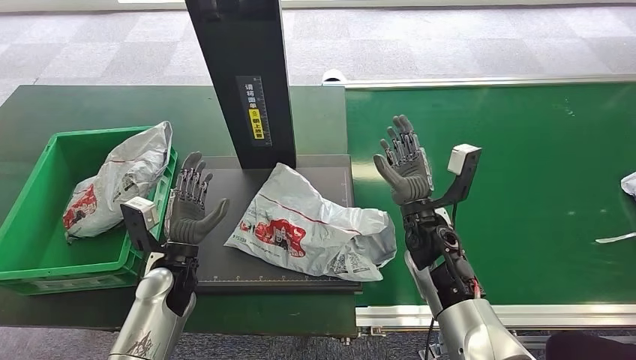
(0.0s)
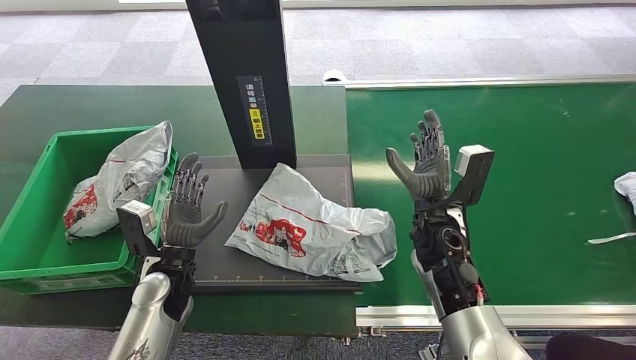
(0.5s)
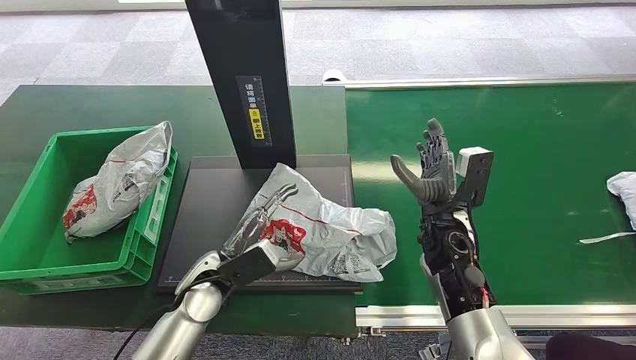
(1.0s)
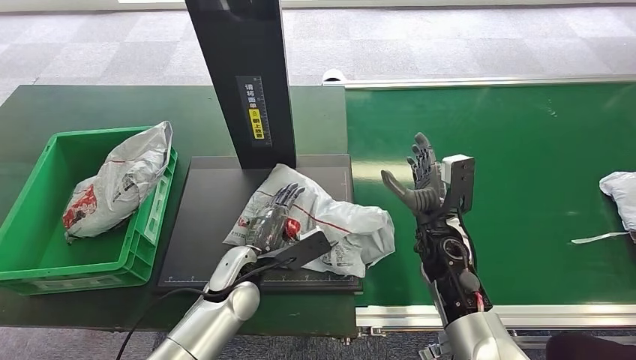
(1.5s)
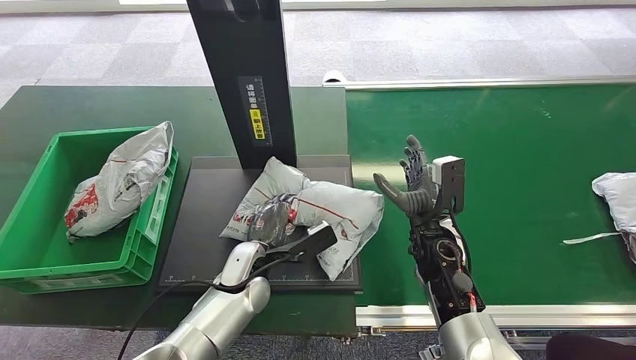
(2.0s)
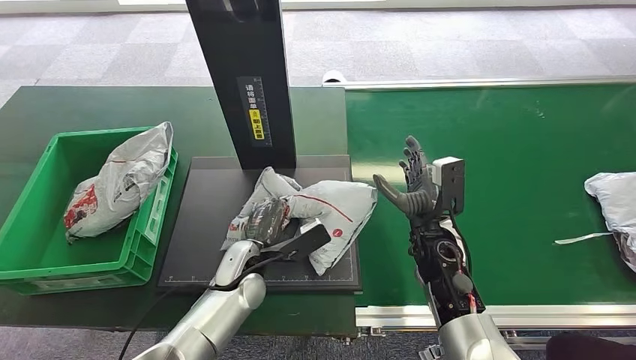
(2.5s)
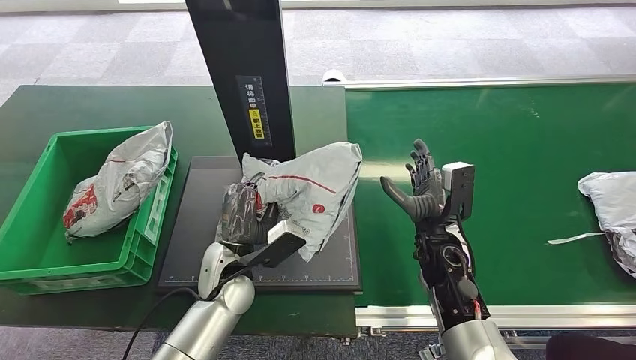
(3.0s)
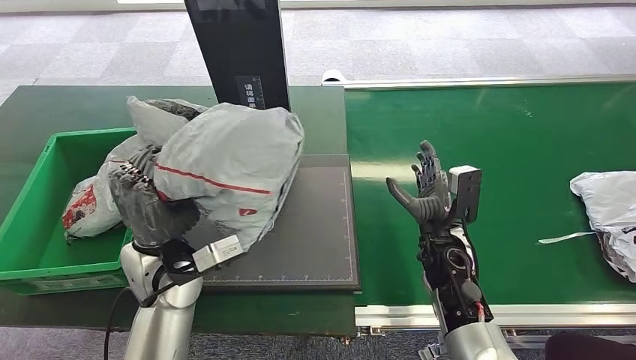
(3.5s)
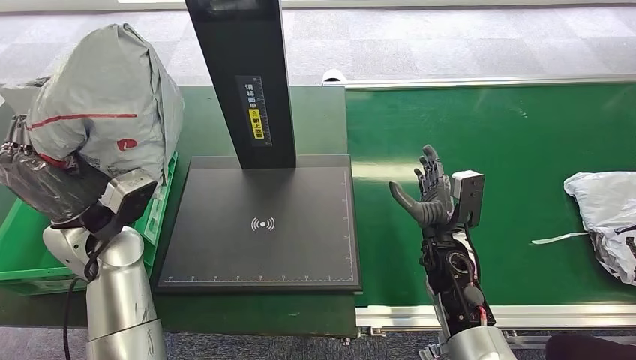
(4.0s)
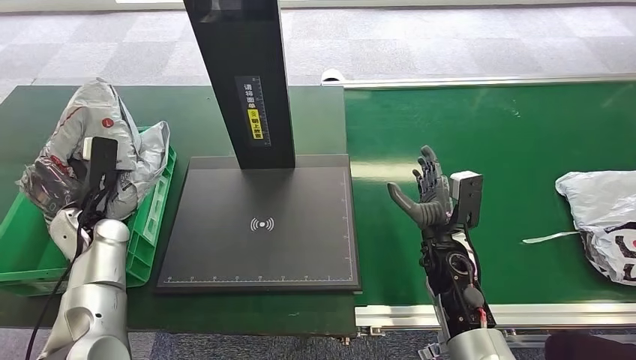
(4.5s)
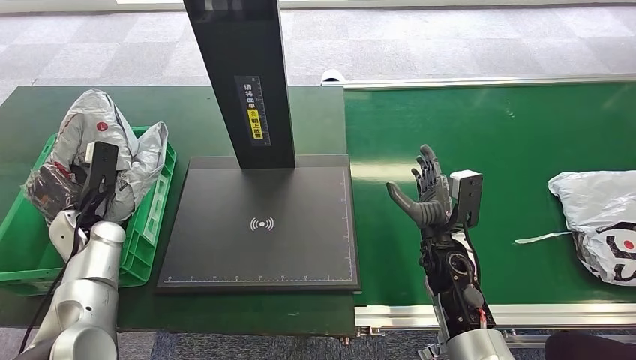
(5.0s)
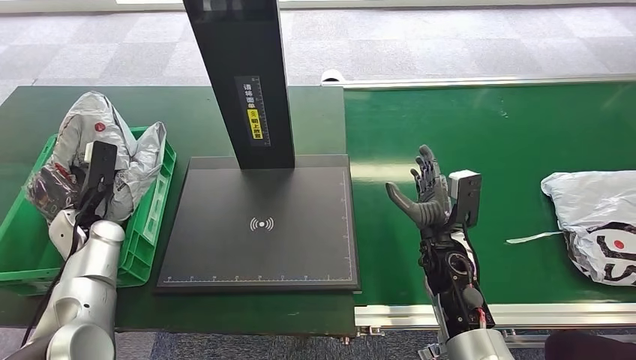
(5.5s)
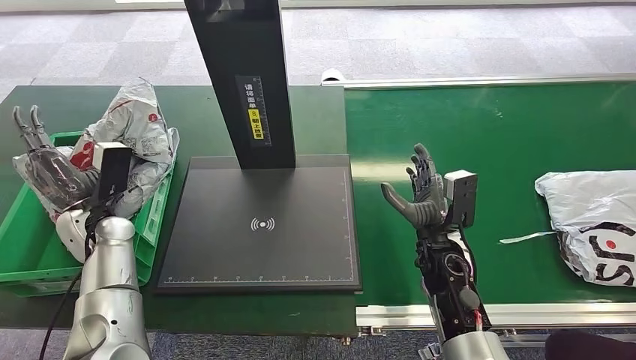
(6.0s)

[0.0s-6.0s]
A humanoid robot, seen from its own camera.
Step, 0.0s to 2.5s: Pick up the package from the inbound machine.
Step, 3.5s to 6.0s: Place the package into the parcel locker.
0.0s to 2.0s: The left hand is displaced to the right by roughly 10 cm.

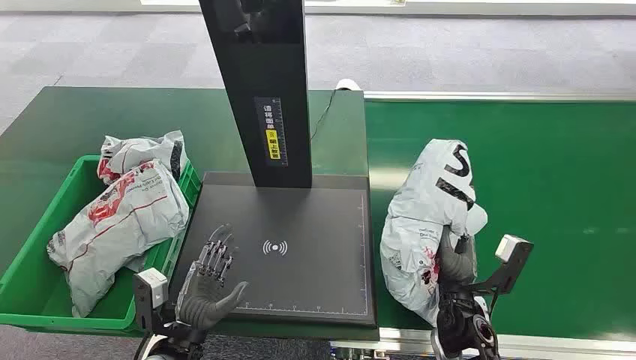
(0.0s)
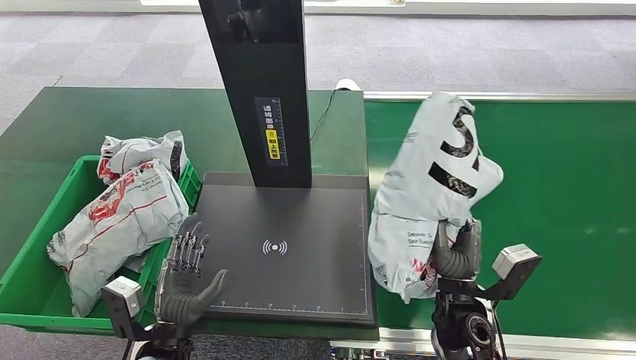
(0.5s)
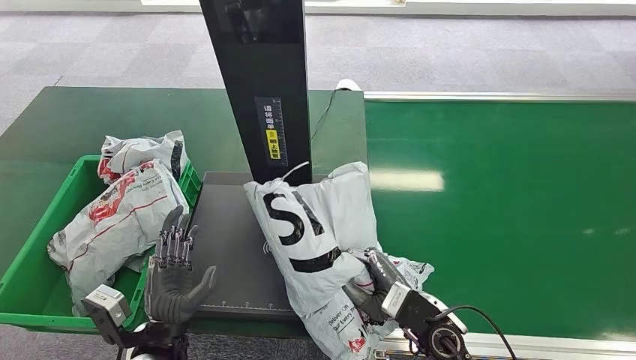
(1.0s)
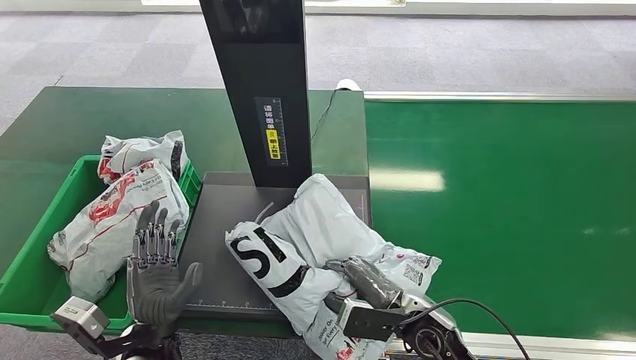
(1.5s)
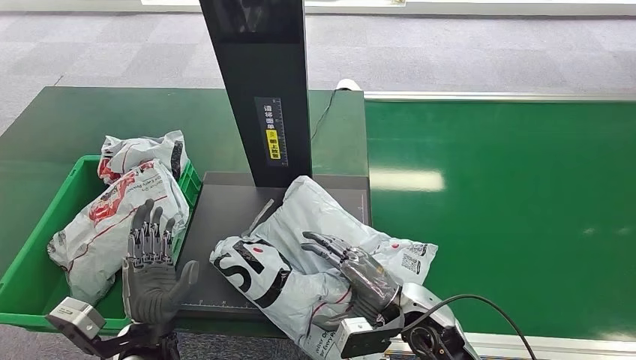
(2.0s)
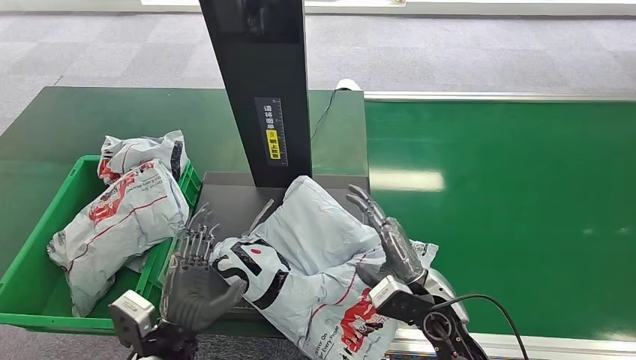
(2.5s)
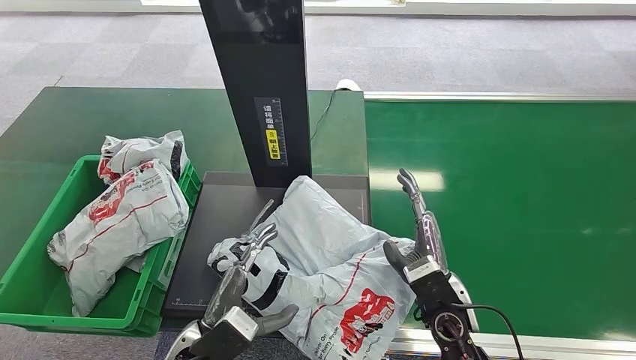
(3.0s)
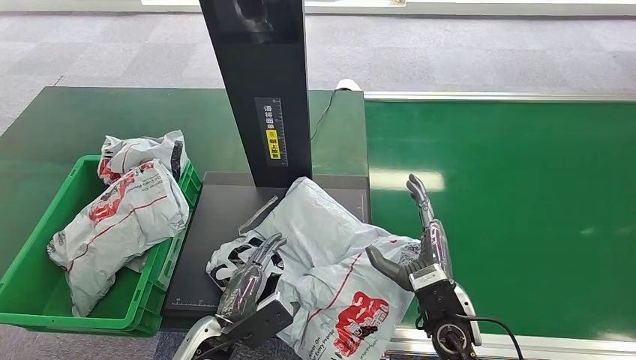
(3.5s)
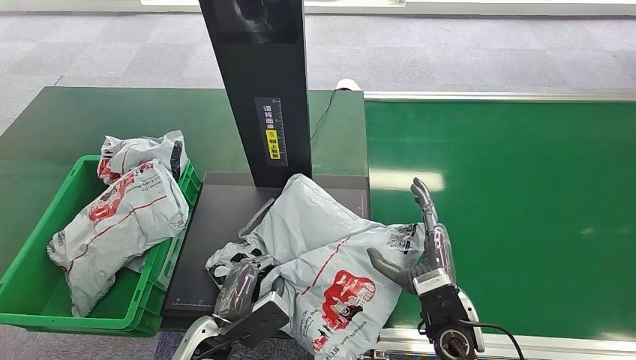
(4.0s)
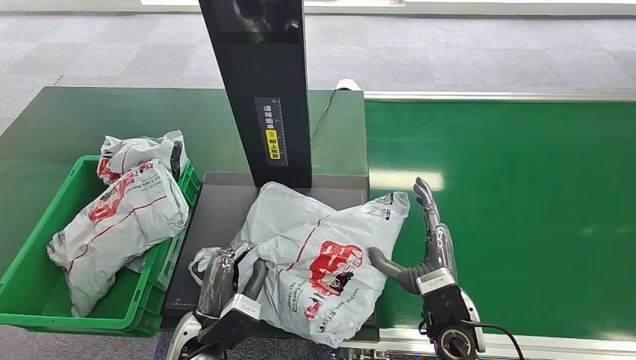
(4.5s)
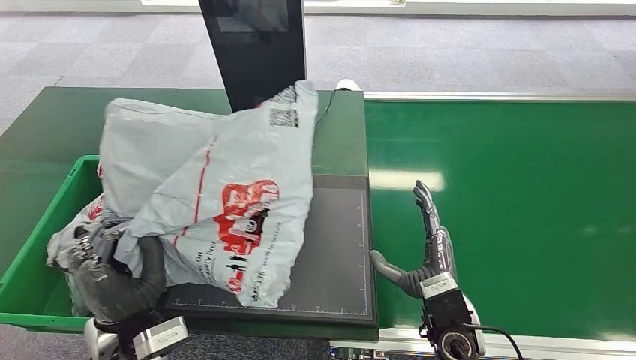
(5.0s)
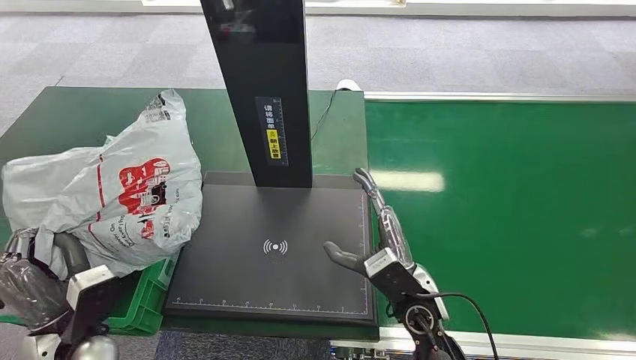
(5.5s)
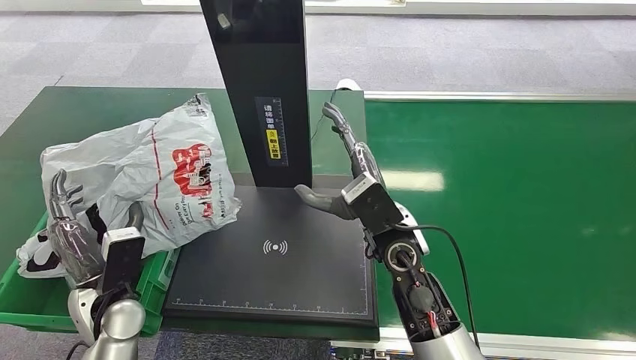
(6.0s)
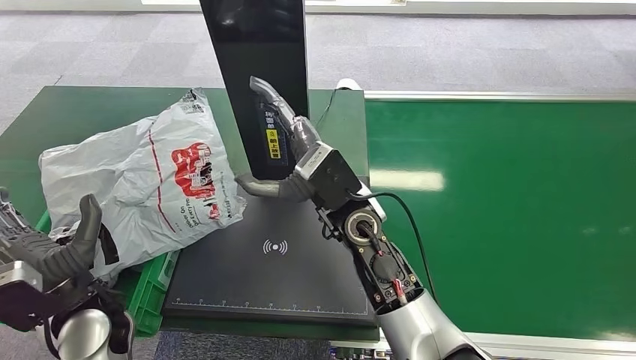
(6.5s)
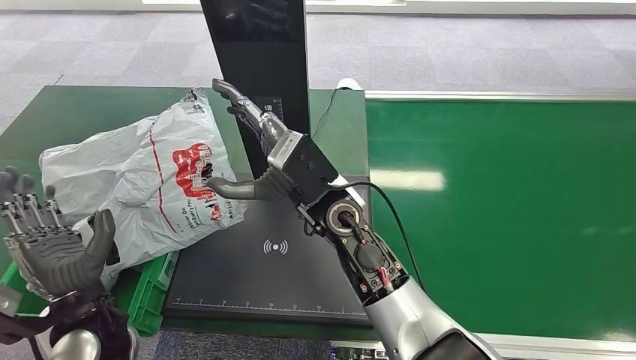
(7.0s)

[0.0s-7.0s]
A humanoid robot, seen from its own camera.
2.0s to 3.5s: The left hand is displaced to the right by roughly 5 cm.
